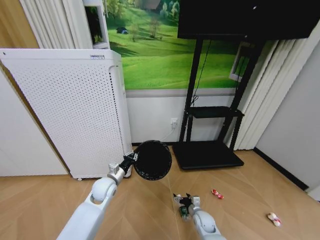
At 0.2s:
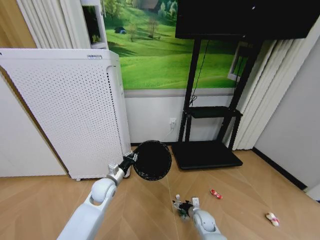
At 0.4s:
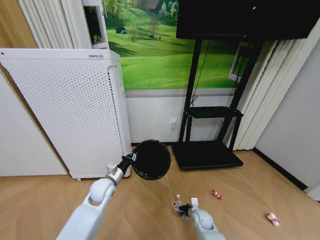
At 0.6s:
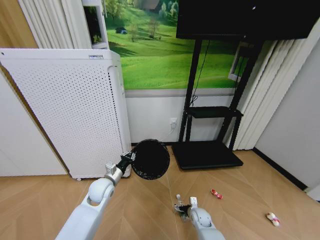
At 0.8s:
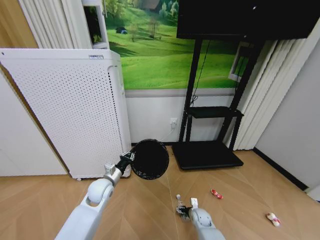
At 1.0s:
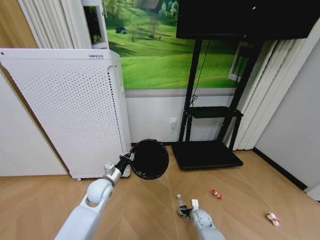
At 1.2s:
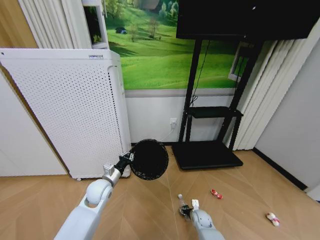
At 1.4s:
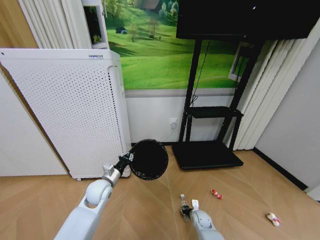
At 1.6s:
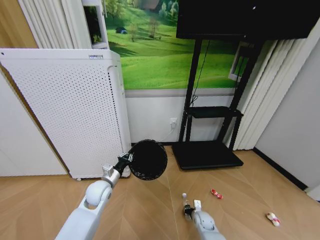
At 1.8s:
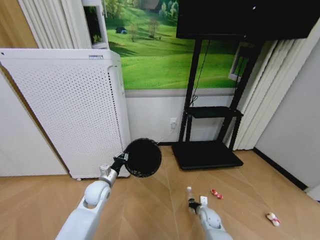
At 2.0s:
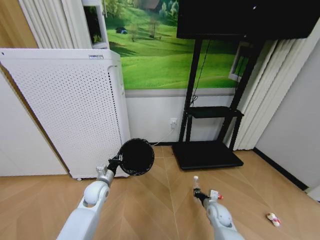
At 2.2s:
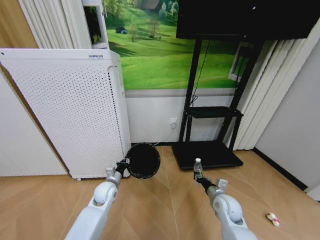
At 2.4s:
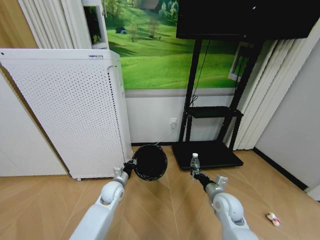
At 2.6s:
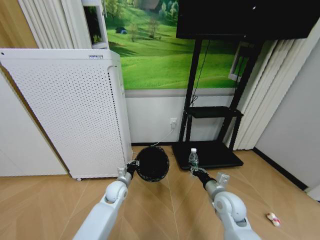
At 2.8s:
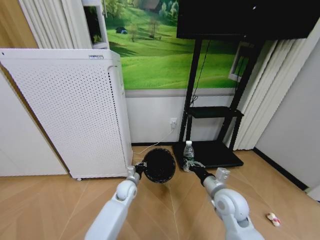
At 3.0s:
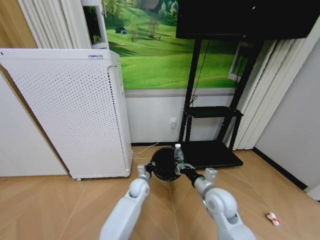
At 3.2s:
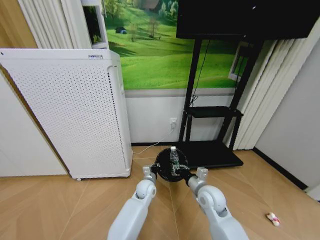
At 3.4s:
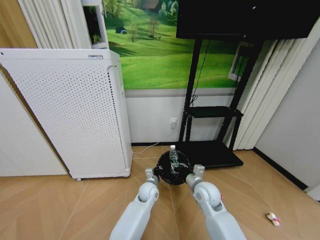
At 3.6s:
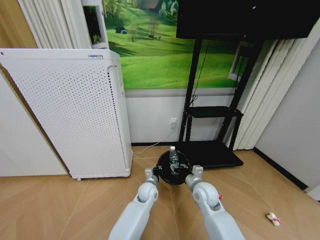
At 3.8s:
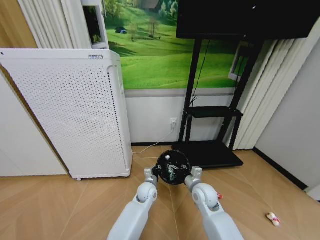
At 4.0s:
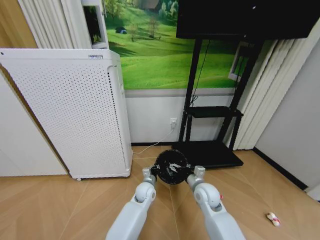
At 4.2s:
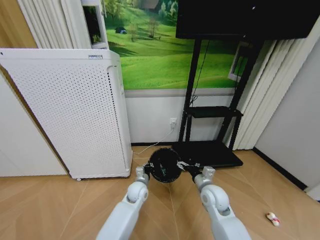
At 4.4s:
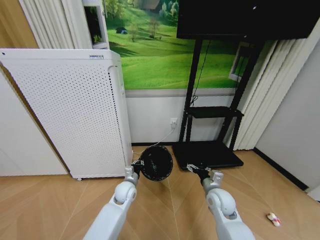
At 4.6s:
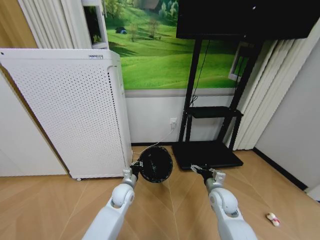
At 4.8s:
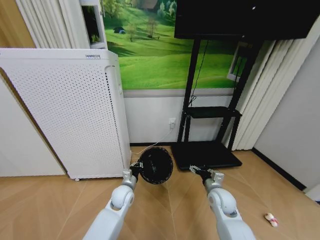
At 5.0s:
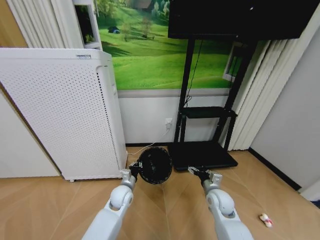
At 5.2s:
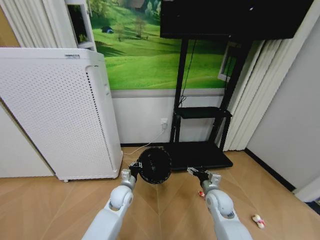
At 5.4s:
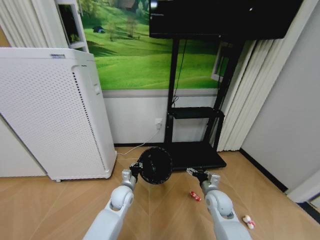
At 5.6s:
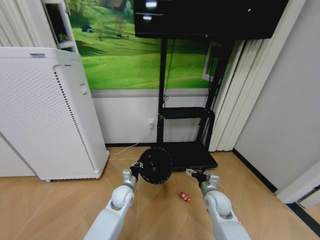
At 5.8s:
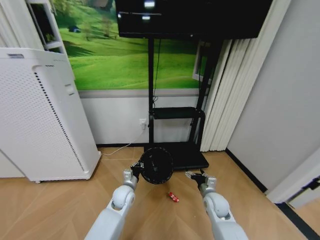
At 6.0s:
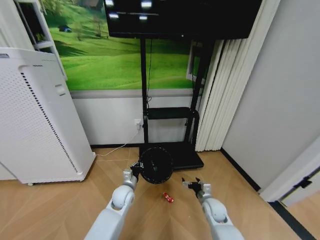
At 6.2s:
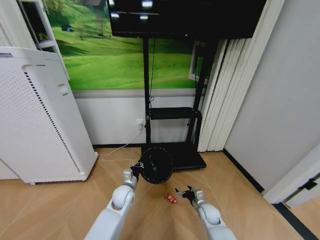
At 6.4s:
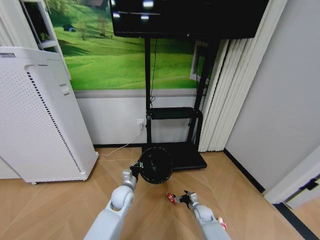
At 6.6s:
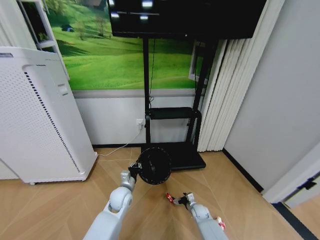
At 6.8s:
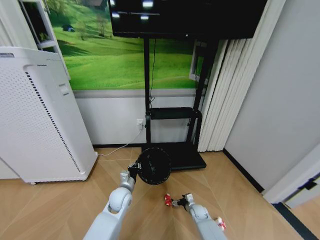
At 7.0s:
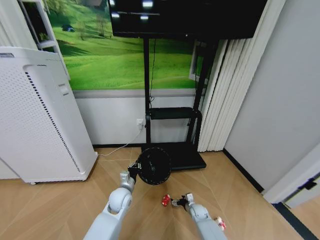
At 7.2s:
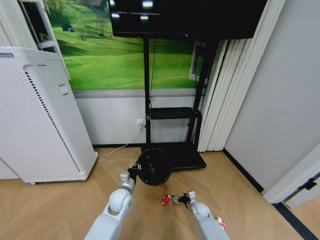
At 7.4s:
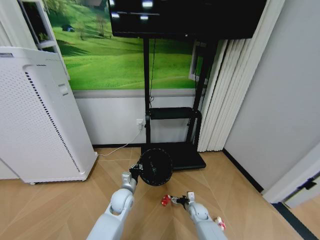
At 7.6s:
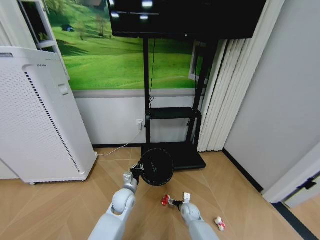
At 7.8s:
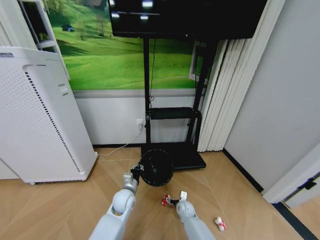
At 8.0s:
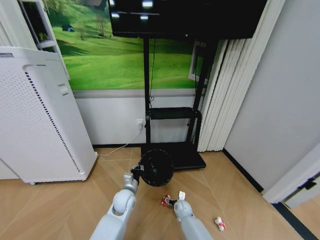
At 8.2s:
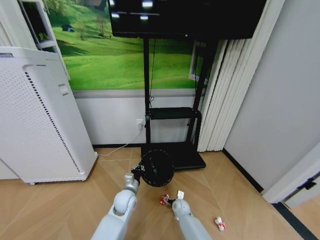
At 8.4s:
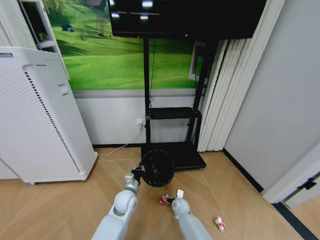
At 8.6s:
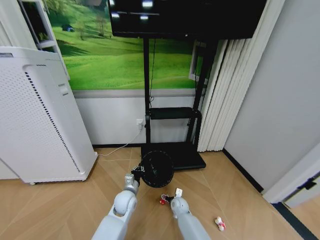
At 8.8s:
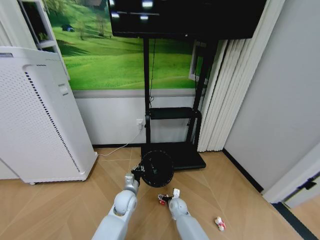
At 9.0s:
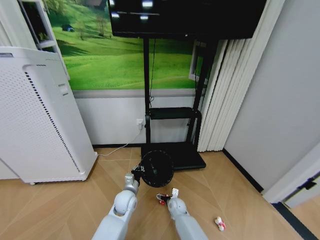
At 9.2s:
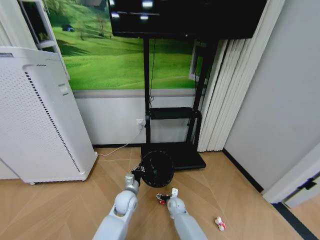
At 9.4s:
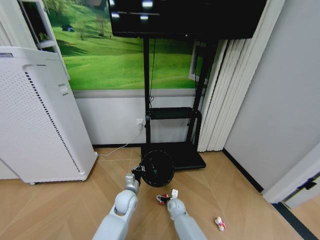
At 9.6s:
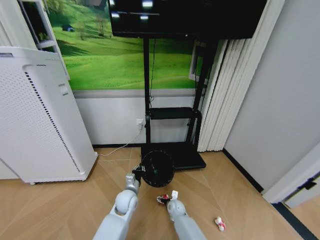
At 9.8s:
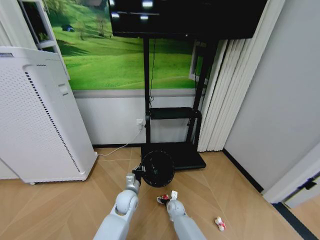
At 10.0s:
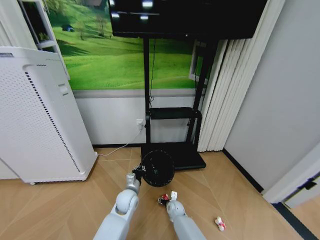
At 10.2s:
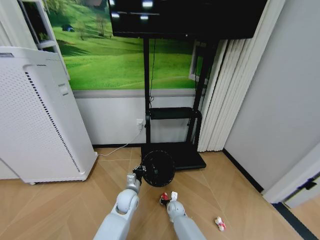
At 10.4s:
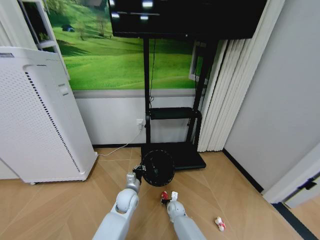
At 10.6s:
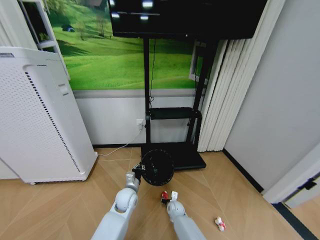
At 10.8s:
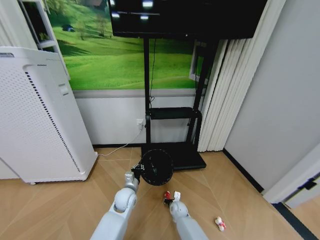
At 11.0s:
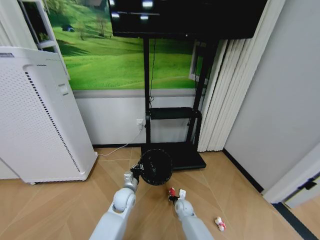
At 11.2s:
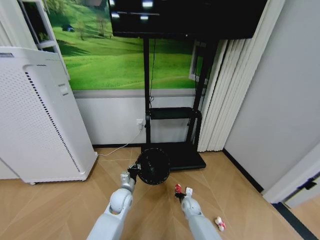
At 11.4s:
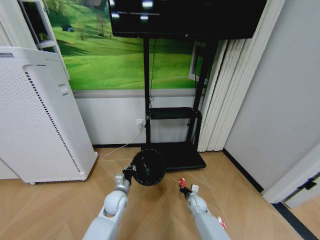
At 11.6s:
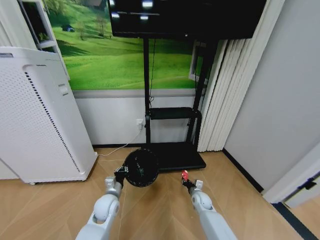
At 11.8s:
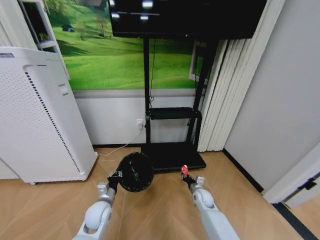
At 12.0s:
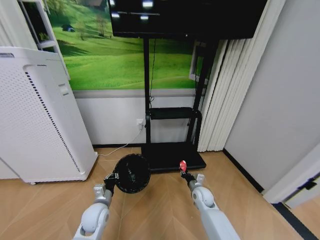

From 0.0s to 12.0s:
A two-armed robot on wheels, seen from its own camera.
Task of the whole recording: Pick up the trash bin and place the garbage on the floor into it.
From 0.0s to 1.6s: The right gripper closes up.
From 1.6s to 3.0s: The left gripper shifts some 15 cm to the right and downward. The right gripper travels upward by approximately 30 cm.
From 3.0s to 4.4s: The right gripper heads downward, covering approximately 5 cm, and opens its fingers, while the left gripper shifts by about 5 cm.
From 4.4s to 6.0s: The right gripper goes some 10 cm downward.
From 6.0s to 7.6s: The right gripper moves downward and to the left, some 15 cm.
From 7.6s to 9.0s: The right gripper shifts some 10 cm to the left.
From 9.0s to 10.4s: The right gripper closes.
From 10.4s to 12.0s: The left gripper heads to the left and backward, covering roughly 15 cm. The right gripper travels upward and to the right by roughly 20 cm.

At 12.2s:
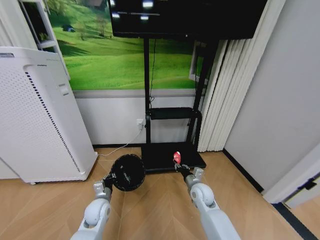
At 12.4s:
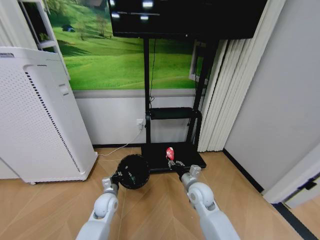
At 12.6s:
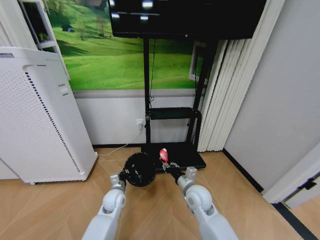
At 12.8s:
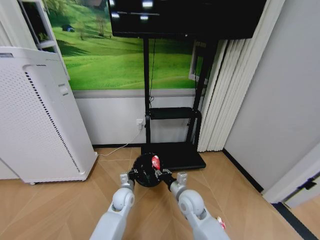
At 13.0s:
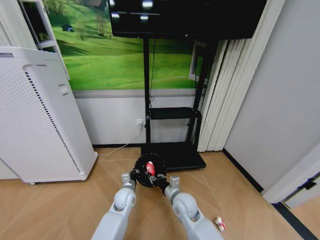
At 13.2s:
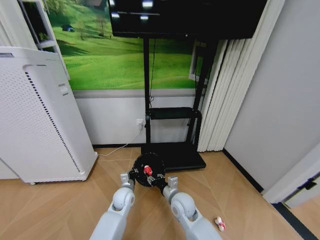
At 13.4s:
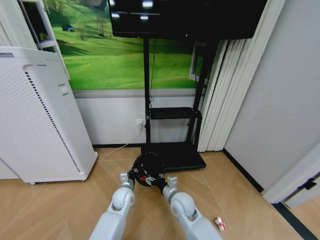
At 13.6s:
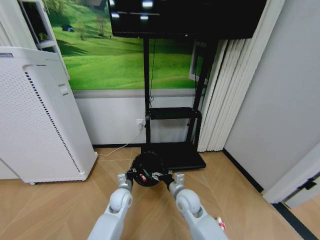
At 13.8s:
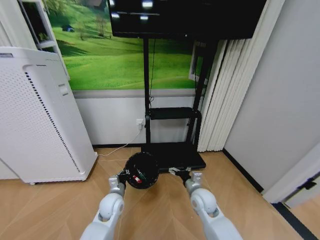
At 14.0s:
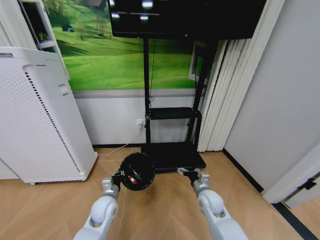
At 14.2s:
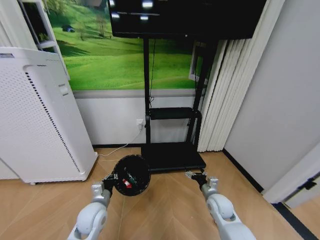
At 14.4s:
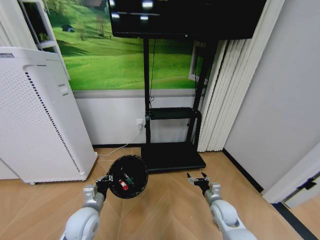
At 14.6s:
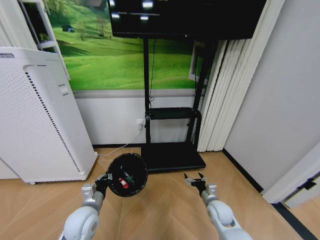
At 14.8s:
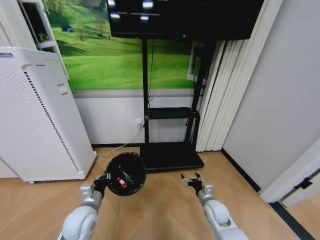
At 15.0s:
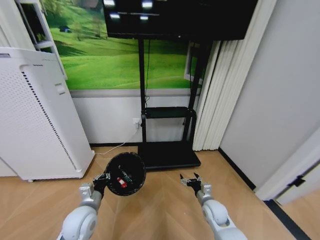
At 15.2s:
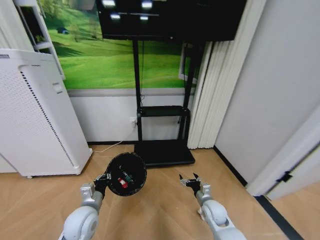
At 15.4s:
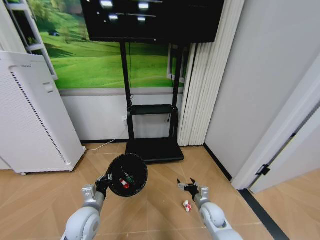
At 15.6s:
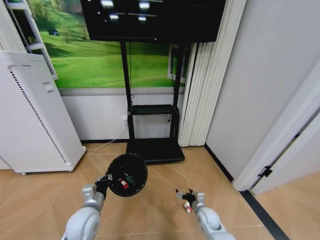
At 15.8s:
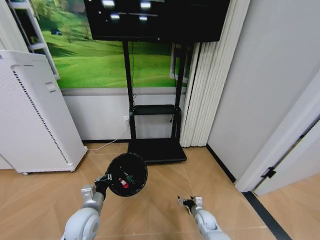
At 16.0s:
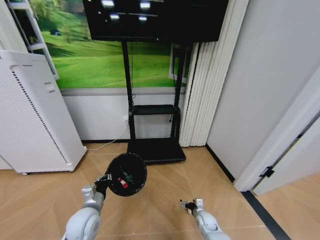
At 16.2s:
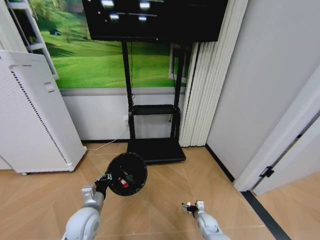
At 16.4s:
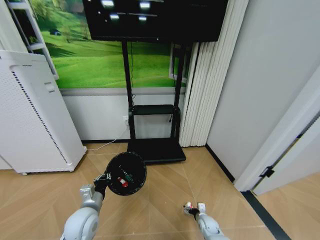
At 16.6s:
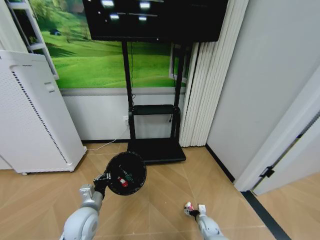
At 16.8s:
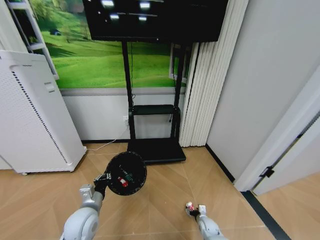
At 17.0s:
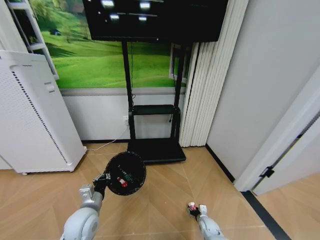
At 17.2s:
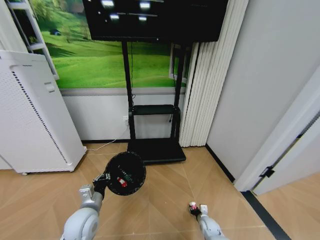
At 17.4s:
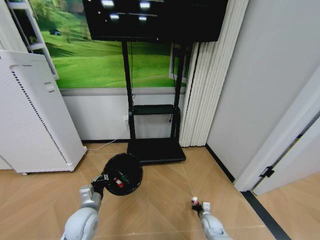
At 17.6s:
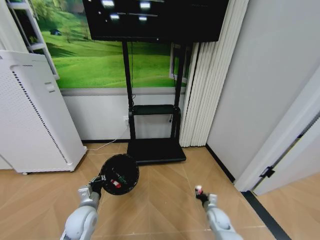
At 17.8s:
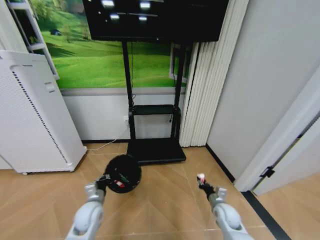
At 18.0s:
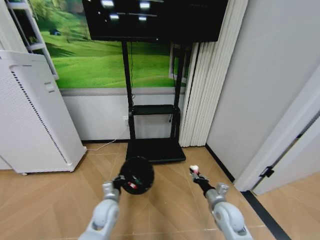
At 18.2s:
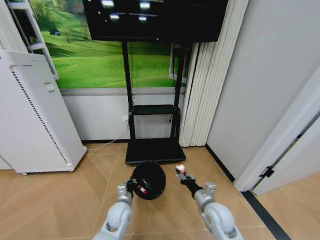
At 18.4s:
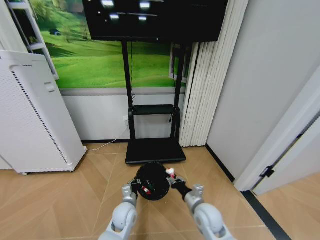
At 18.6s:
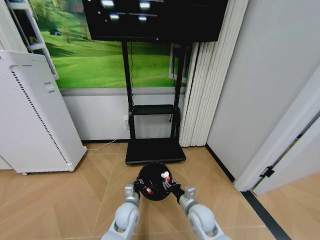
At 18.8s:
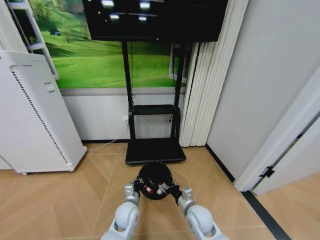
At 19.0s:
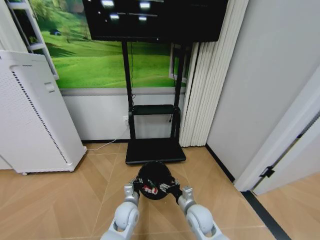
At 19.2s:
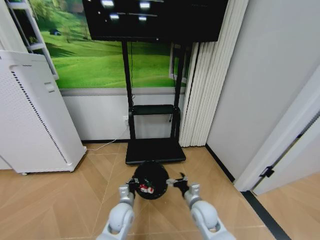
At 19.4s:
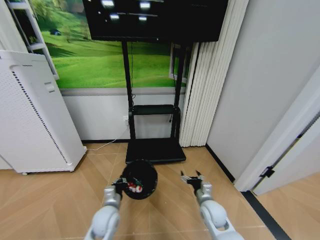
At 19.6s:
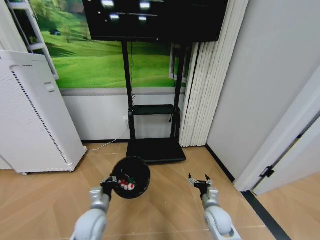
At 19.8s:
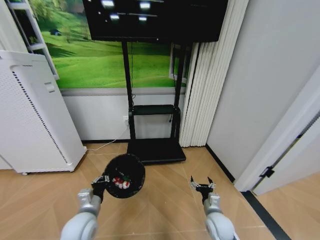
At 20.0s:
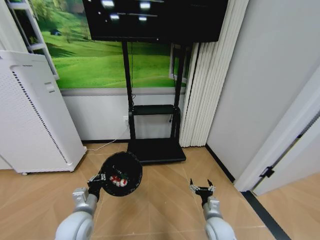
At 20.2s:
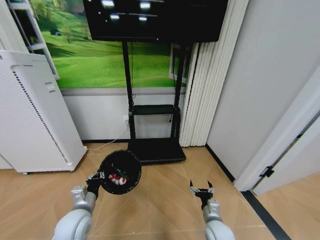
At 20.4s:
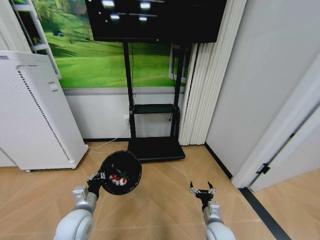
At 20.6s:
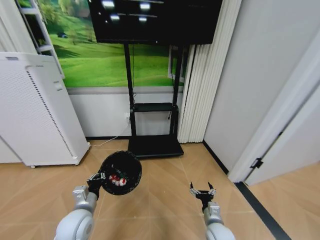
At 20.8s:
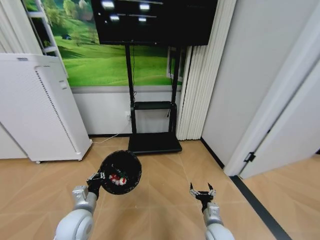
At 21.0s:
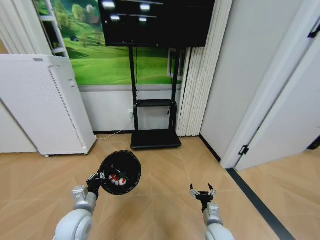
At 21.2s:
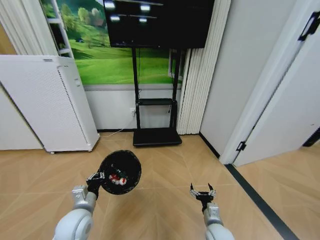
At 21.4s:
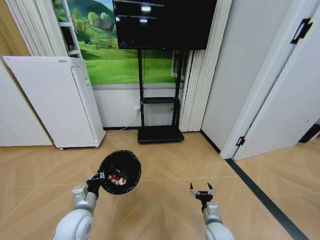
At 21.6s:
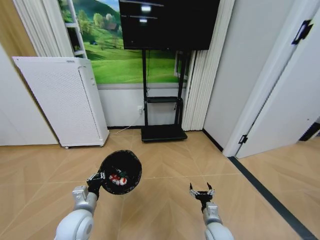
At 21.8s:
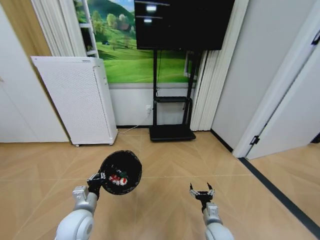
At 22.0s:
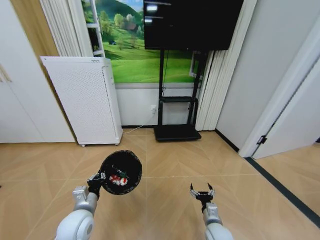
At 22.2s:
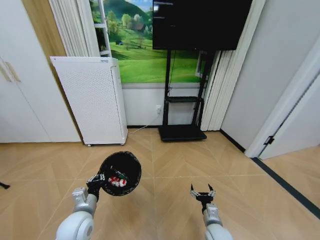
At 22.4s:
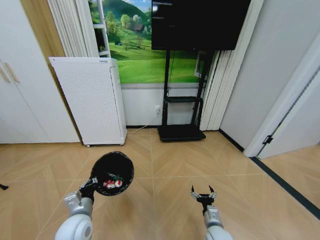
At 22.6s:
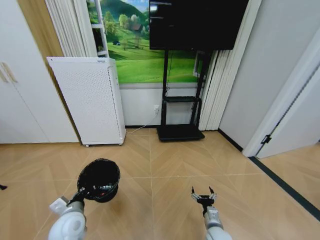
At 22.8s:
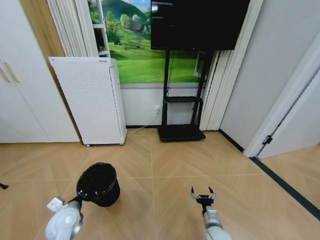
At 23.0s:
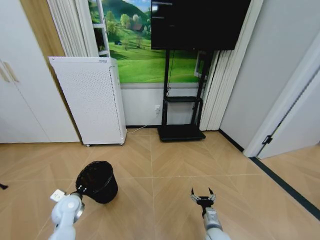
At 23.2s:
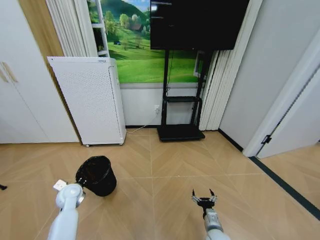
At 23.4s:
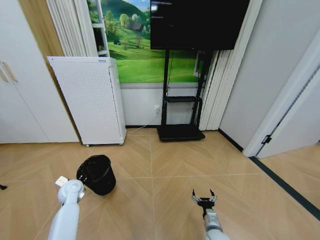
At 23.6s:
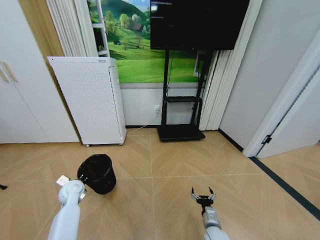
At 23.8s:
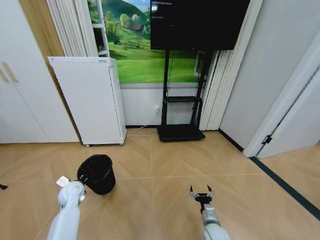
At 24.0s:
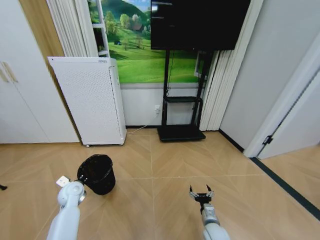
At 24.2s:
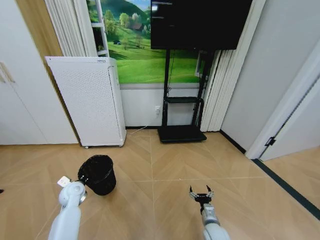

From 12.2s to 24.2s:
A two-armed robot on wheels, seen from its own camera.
Task of the whole recording: Pick up the trash bin and place the garbage on the floor into it.
From 12.2s to 13.8s: The right gripper opens its fingers. Meanwhile the left gripper travels to the right by approximately 5 cm.
From 13.8s to 15.2s: The right gripper shifts approximately 10 cm to the right and downward, while the left gripper travels backward, to the left and upward by approximately 15 cm.
From 15.2s to 16.6s: The right gripper goes about 20 cm downward.
From 16.6s to 18.2s: The right gripper is displaced upward by about 25 cm, and closes its fingers. Meanwhile the left gripper goes roughly 15 cm to the right and downward.
From 18.2s to 19.8s: The left gripper moves to the left, upward and backward, roughly 15 cm. Meanwhile the right gripper heads downward, covering about 5 cm, travels to the left and back again, roughly 5 cm each way, and opens up.
From 22.6s to 24.2s: The left gripper goes about 15 cm forward and to the left.
